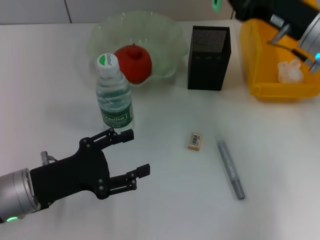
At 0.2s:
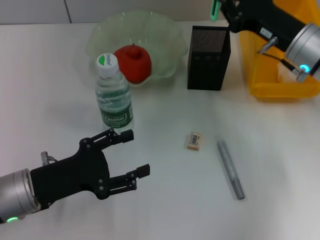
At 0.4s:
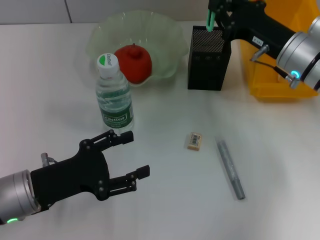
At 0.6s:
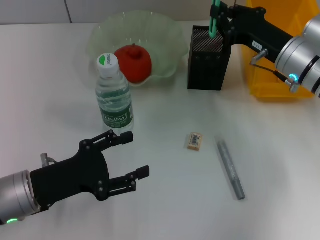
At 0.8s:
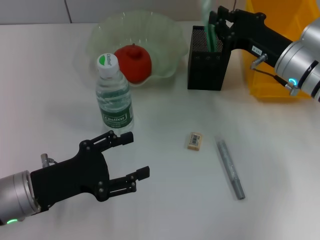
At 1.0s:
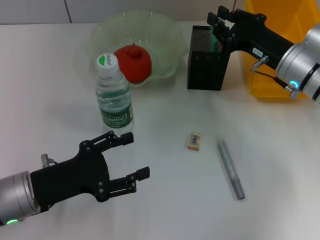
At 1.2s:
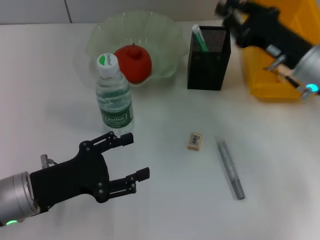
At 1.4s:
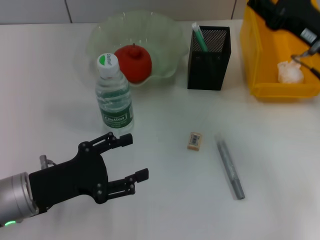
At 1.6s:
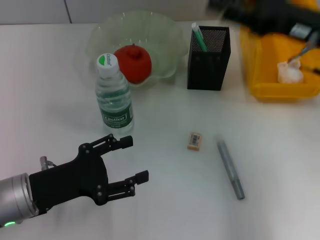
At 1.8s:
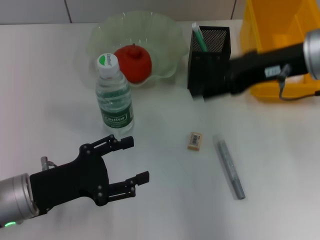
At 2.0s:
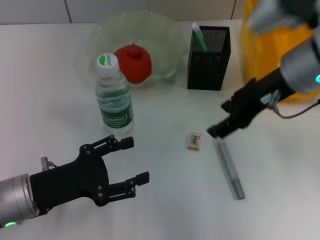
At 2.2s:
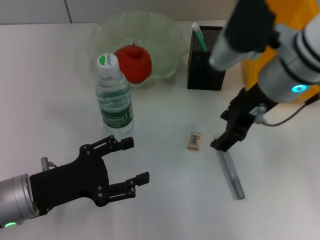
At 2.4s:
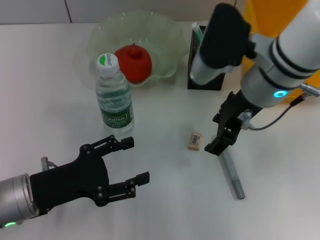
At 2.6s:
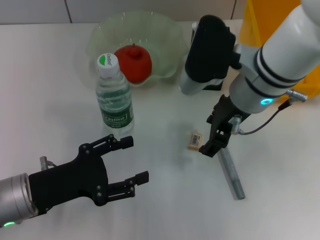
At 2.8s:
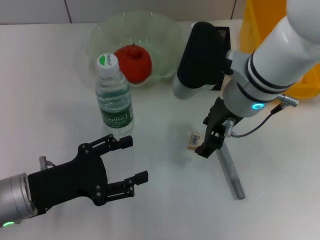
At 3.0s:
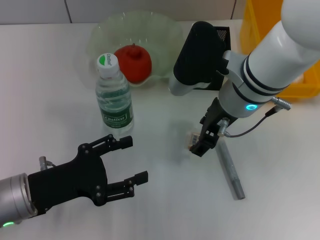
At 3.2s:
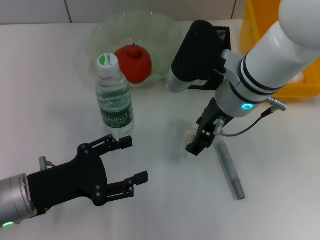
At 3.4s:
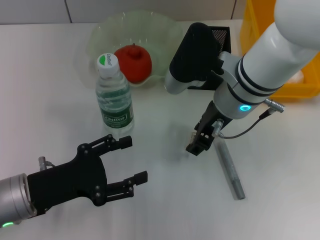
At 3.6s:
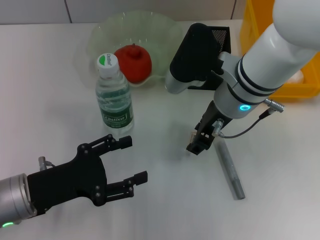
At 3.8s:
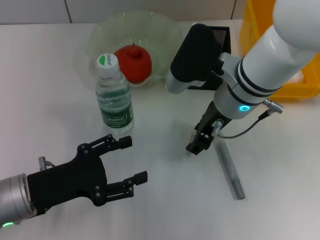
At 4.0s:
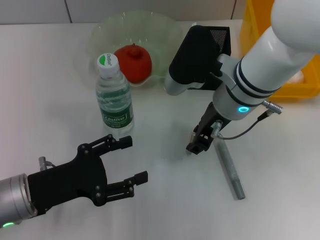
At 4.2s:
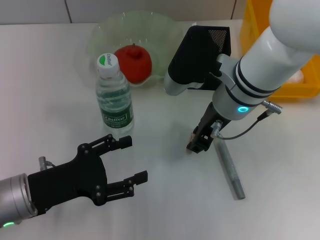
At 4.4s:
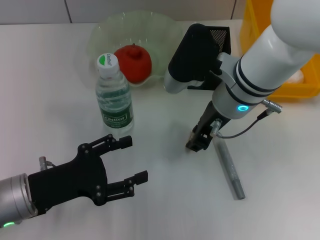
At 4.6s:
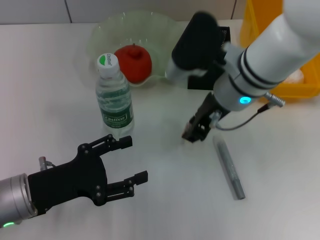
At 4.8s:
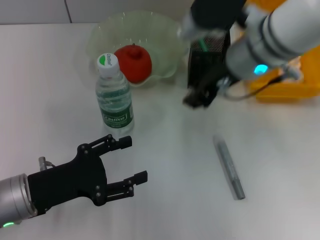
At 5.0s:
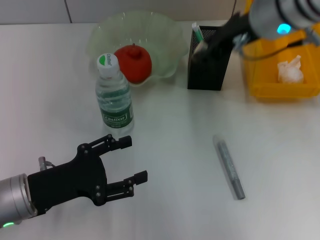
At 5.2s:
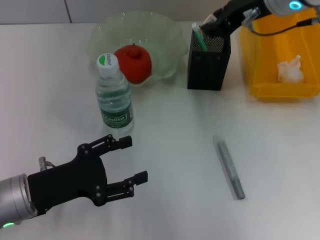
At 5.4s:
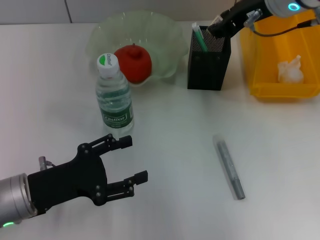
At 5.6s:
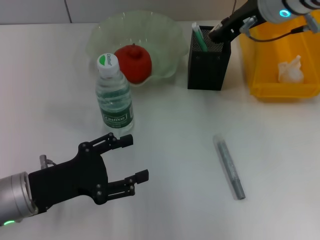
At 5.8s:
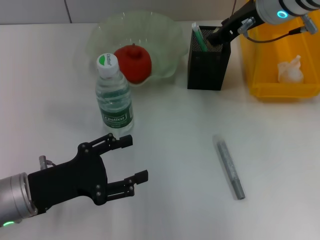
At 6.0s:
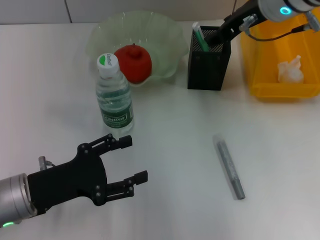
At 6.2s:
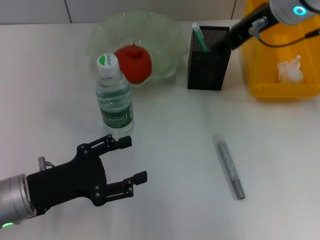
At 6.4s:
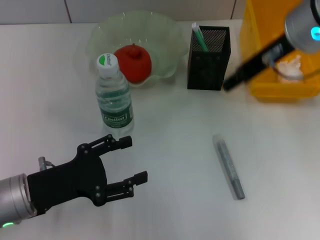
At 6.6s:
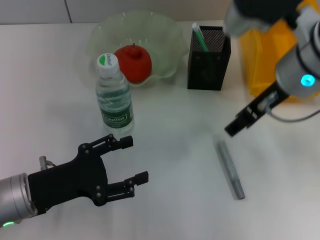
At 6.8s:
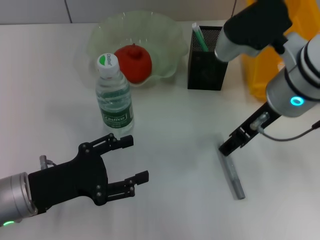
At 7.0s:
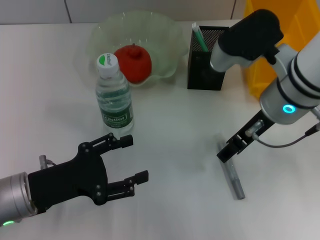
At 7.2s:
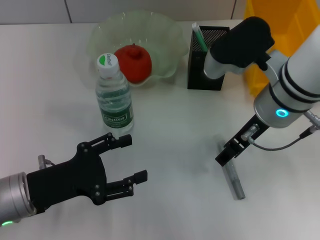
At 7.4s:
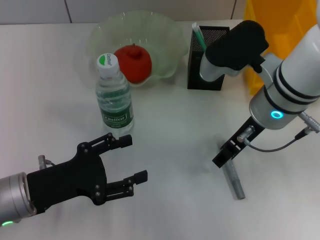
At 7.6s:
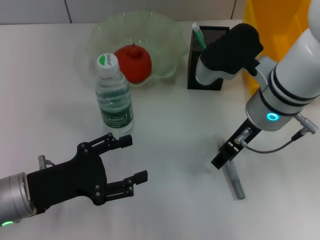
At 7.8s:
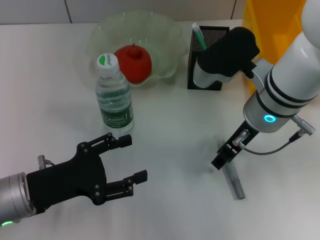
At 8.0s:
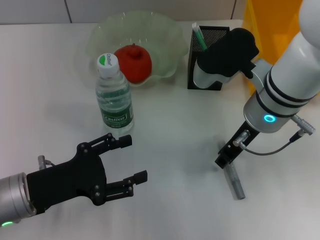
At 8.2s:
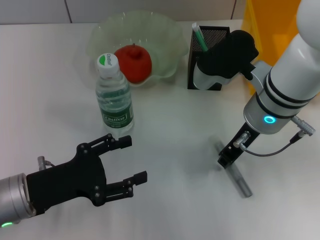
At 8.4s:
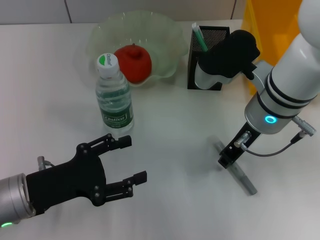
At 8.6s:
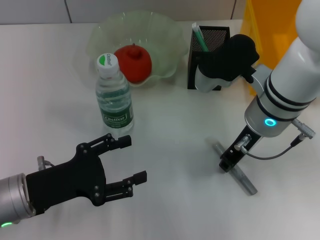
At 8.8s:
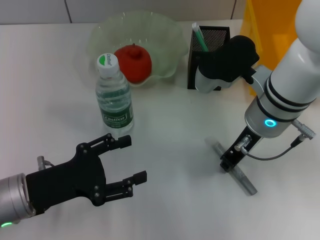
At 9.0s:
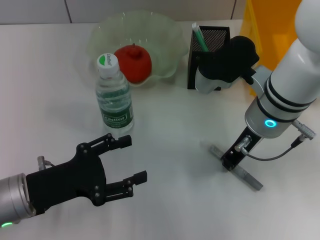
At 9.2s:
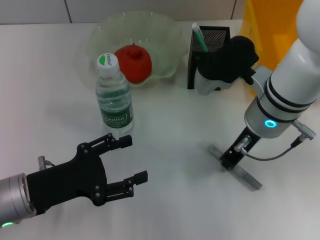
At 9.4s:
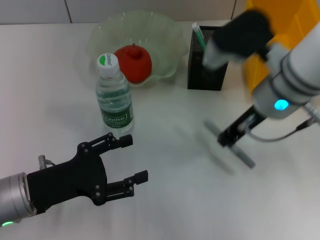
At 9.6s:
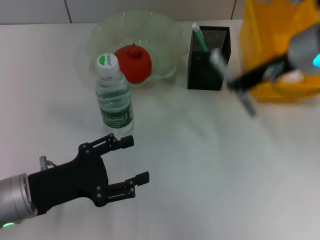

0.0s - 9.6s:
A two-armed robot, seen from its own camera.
Step, 1.2s - 4.2s: Grab the eraser with the right hand.
Step, 4.4s - 5.8s: Put the eraser into the pen holder with the right hand.
Step, 6.0s - 9.0s: Grab the gray glue with the right hand.
0.0s - 1.6s: The right gripper is displaced upward by some 5 cm, and opens its fingers.
1.6s - 3.2s: The right gripper is displaced to the left by approximately 15 cm.
3.2s - 4.8s: The right gripper shifts roughly 5 cm upward, and closes its fingers.
4.8s - 6.4s: The right gripper ends up approximately 5 cm from where it was, and opens up.
6.4s - 8.0s: The right gripper shifts roughly 10 cm downward.
8.0s - 9.6s: The right gripper moves upward and to the right, about 10 cm, and closes up.

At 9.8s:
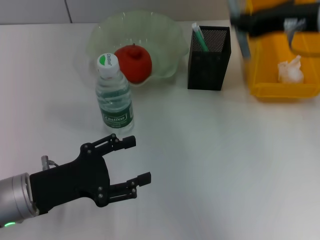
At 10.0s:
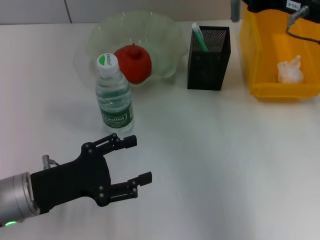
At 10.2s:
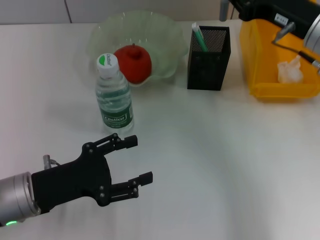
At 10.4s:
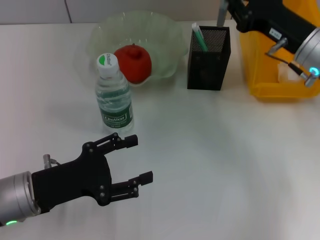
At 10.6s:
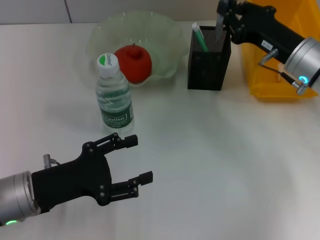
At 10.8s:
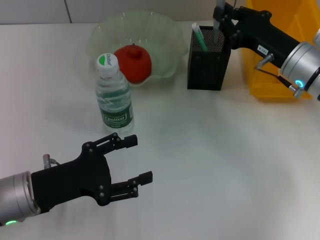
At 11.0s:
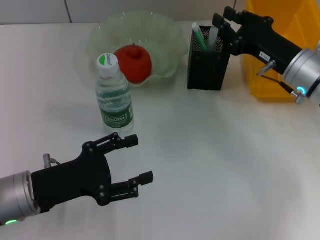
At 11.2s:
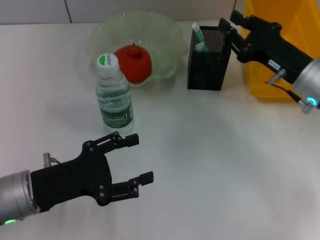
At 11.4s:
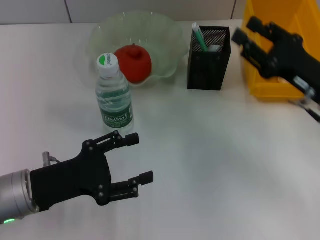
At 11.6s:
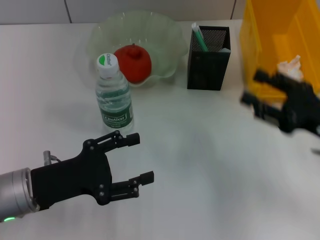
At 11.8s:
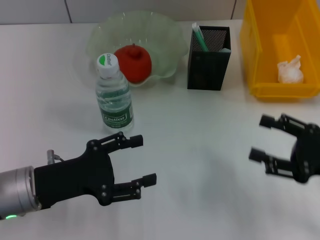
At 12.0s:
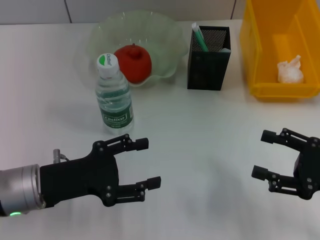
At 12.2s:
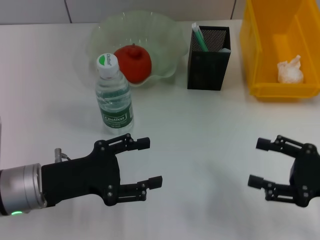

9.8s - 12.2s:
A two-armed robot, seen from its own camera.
Step, 9.8s - 11.4s: Place the gray glue into the pen holder with the right hand.
9.8s - 11.0s: The right gripper travels downward by approximately 15 cm.
11.0s - 12.2s: The right gripper moves backward and to the right, roughly 20 cm, and opens its fingers.

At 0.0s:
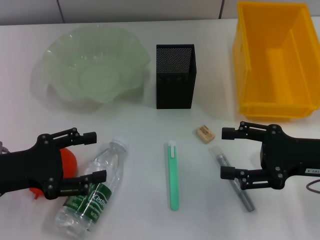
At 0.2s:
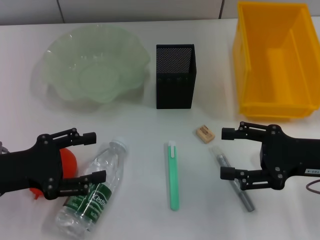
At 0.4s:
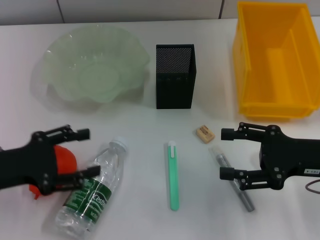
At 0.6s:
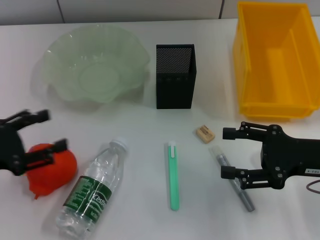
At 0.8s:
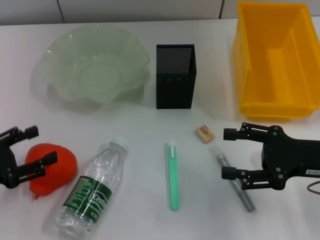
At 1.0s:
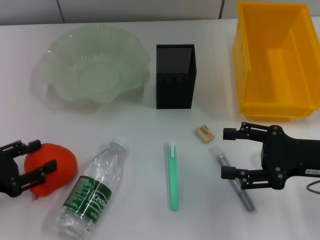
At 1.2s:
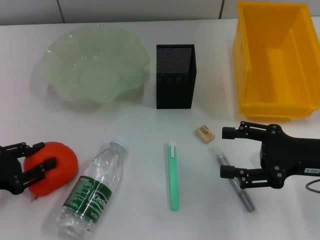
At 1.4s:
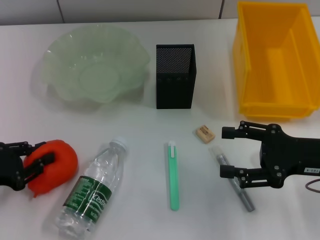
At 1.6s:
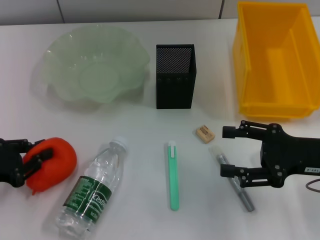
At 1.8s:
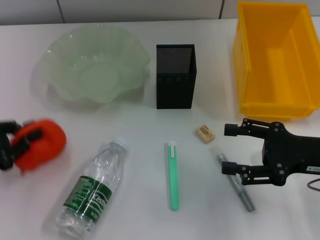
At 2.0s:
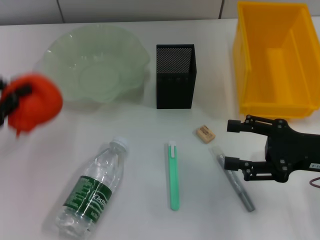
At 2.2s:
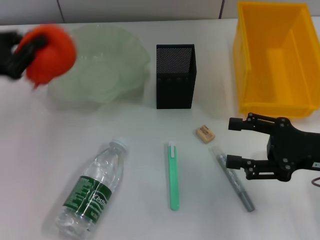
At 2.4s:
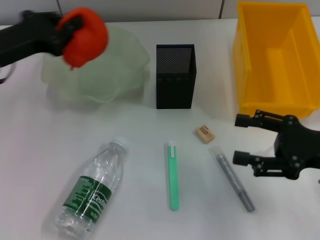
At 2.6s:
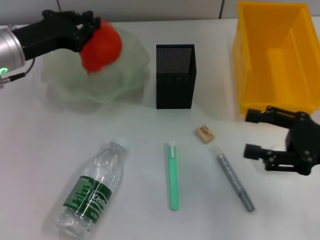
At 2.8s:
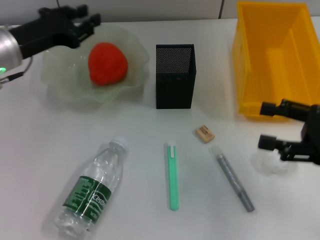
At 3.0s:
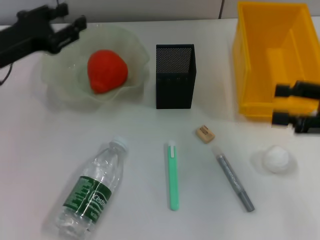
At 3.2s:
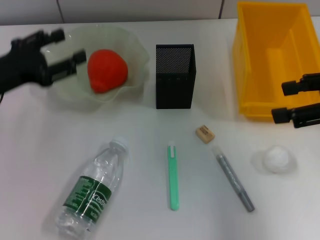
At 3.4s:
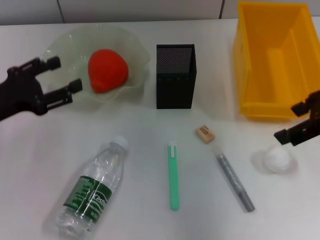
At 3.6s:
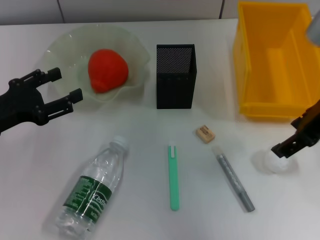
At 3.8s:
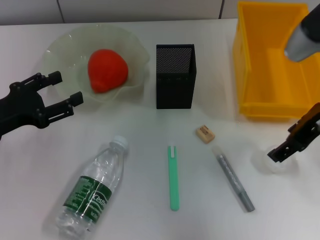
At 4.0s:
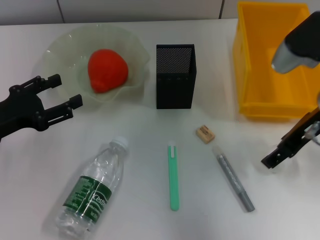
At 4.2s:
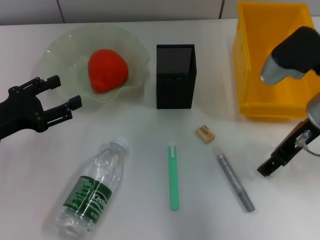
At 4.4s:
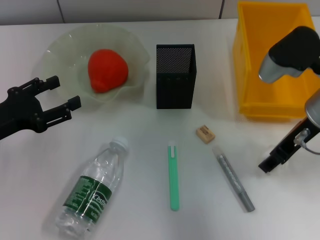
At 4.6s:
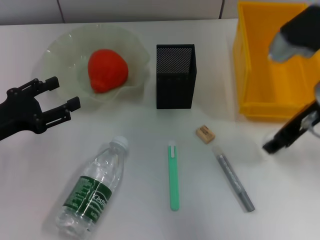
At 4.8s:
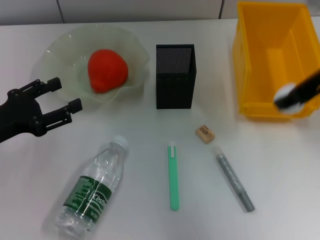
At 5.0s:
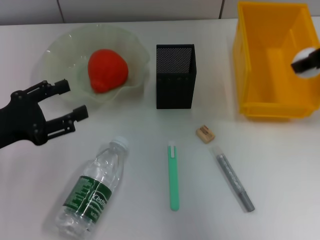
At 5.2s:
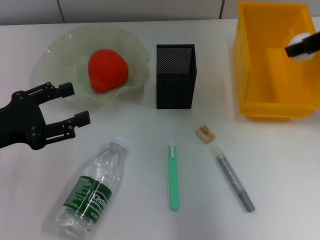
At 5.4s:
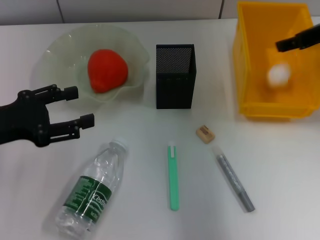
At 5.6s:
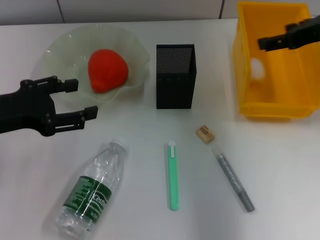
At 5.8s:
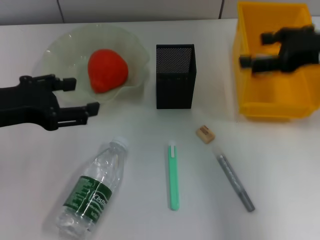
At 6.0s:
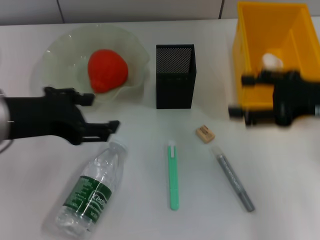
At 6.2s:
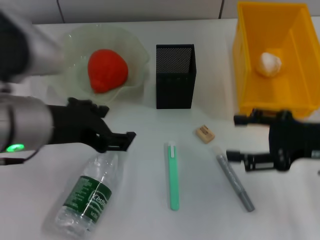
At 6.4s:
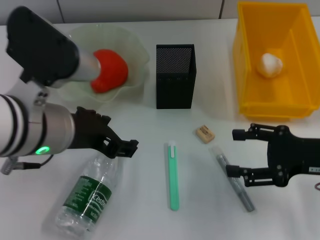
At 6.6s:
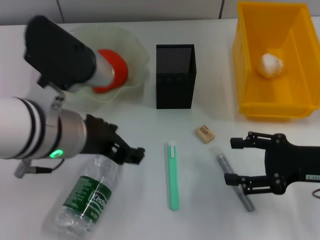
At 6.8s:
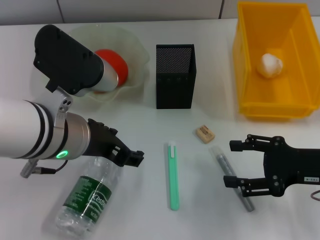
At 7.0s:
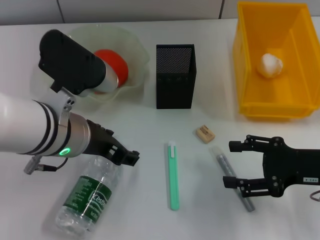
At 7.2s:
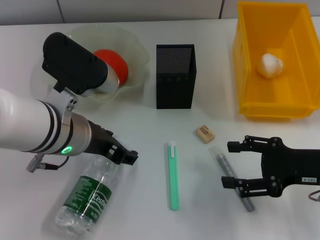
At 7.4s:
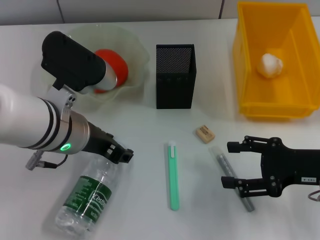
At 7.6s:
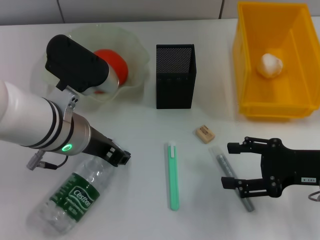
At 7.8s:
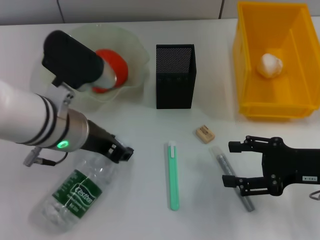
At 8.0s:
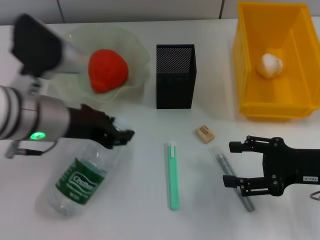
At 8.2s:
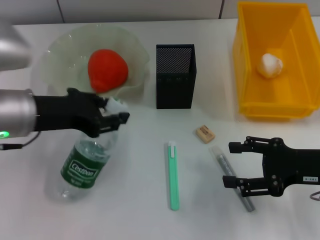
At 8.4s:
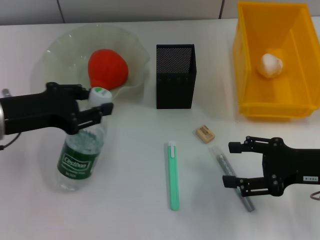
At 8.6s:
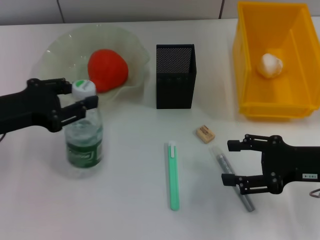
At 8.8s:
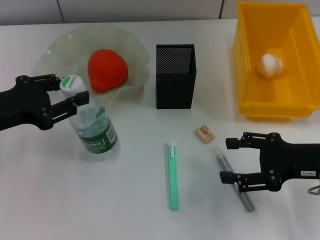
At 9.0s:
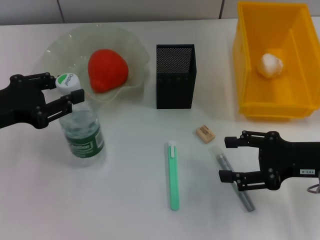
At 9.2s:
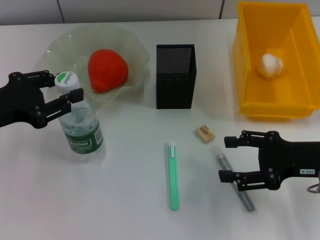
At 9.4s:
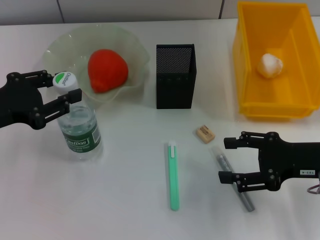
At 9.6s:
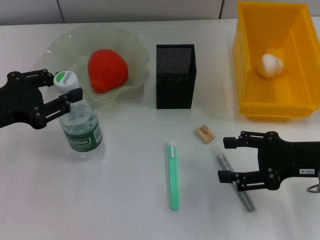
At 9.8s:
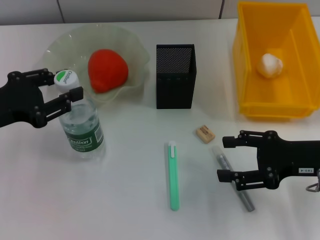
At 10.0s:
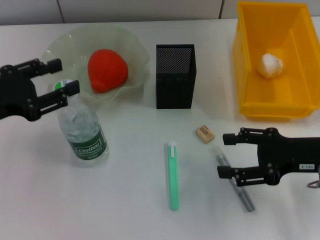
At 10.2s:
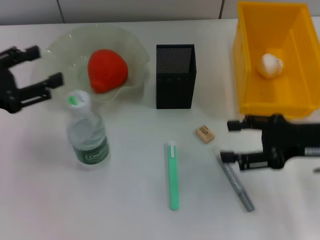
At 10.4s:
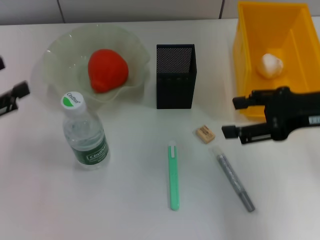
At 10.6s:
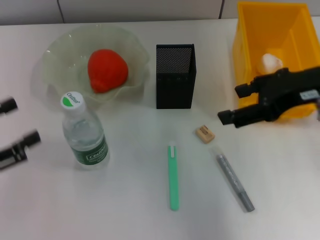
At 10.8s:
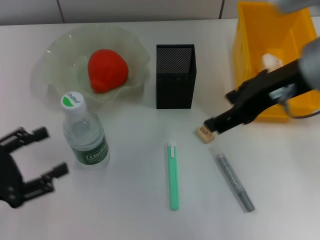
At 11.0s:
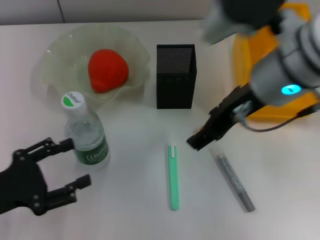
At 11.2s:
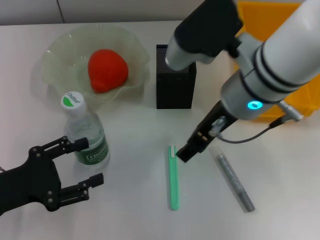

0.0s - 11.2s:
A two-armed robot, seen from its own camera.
Step, 0.0s - 1.2s: Grab the orange with the left hand.
Step, 1.4s - 3.0s: Place the orange into the fruit bowl with the left hand.
Step, 3.2s - 4.2s: Grab the paper ball with the right hand.
Step, 4.4s - 5.6s: Place the paper ball into the trash can with the right hand.
Step, 5.8s - 7.4s: Grab the water bottle with the left hand.
Step, 7.6s - 10.2s: Place the water bottle on the table with the left hand.
0.0s - 1.6s: The left gripper is displaced to the left by roughly 5 cm, and closes its fingers.
1.6s - 3.2s: The right gripper moves upward, some 15 cm. Meanwhile the left gripper is displaced forward and upward by some 10 cm.
3.2s - 4.8s: The left gripper heads backward, covering some 5 cm, while the right gripper goes approximately 10 cm to the left and forward, reaches roughly 10 cm downward, then returns, and closes up.
4.8s - 6.4s: The right gripper heads downward and backward, covering approximately 15 cm, and opens up. The left gripper moves to the right and upward, roughly 20 cm.
6.4s - 8.0s: The left gripper changes place by approximately 5 cm, and closes its fingers.
8.0s - 9.6s: The left gripper shifts some 10 cm to the left.
9.6s - 11.2s: The right gripper moves to the left and upward, approximately 20 cm. Meanwhile the left gripper goes roughly 10 cm downward and backward, and opens.
